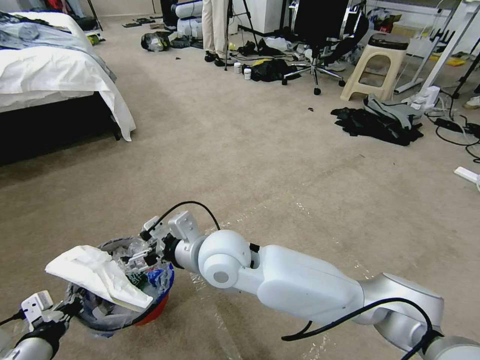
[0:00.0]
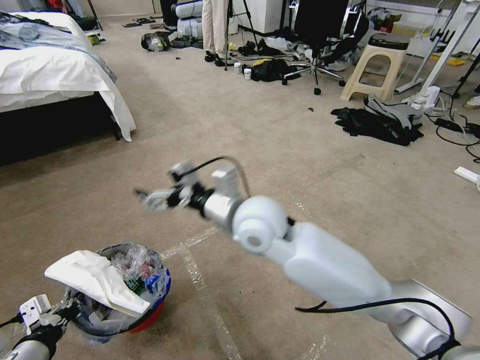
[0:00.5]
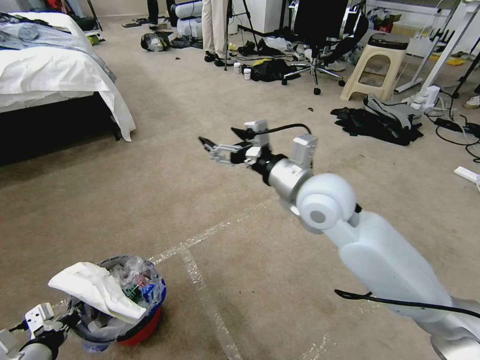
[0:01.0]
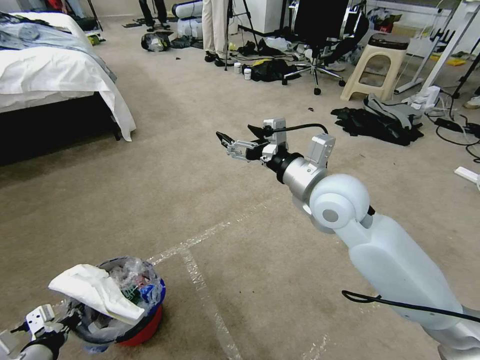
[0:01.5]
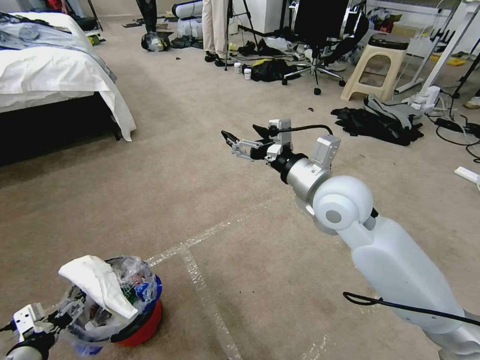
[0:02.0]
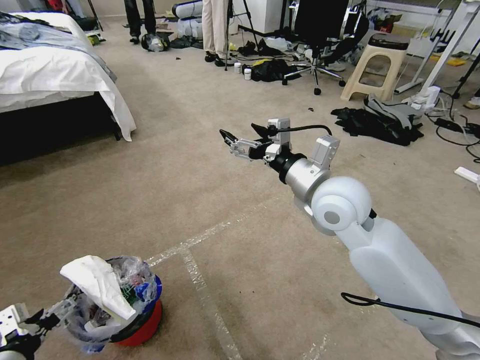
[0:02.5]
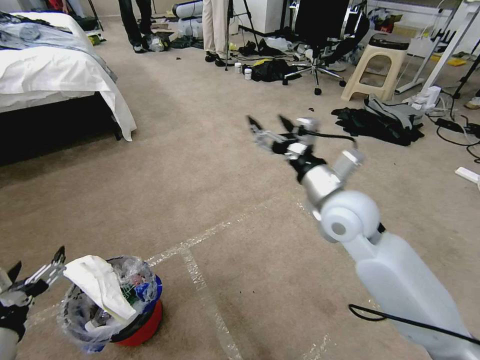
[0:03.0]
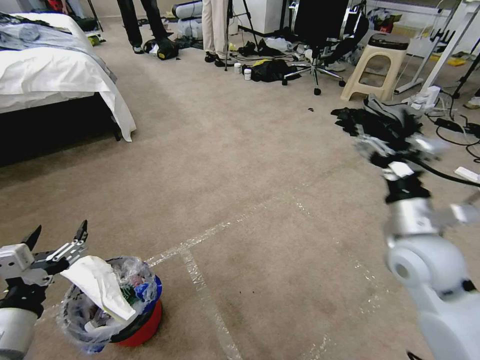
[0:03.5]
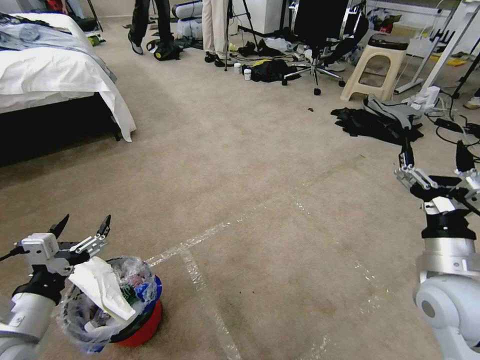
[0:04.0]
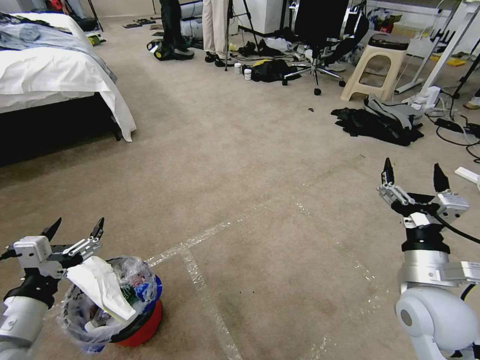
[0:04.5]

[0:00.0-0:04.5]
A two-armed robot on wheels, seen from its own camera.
Task of the whole recording: Pick up the trash bin and place the garbage on the floor into it.
0.0 to 2.0 s: The left gripper opens up. Meanwhile the right gripper moves to the right, roughly 20 cm.
2.0 to 4.5 s: The left gripper heads upward, covering some 10 cm; the right gripper is displaced backward, to the right and downward by approximately 25 cm.

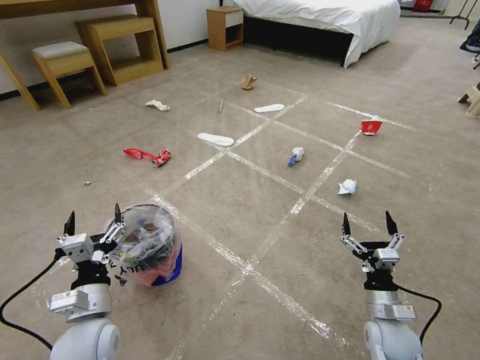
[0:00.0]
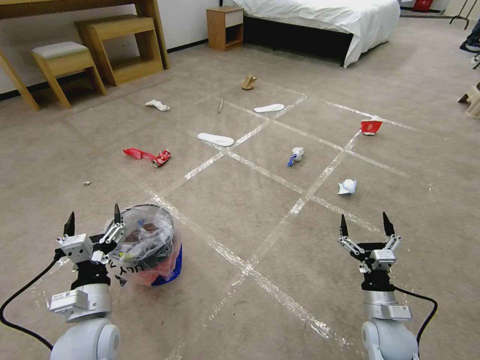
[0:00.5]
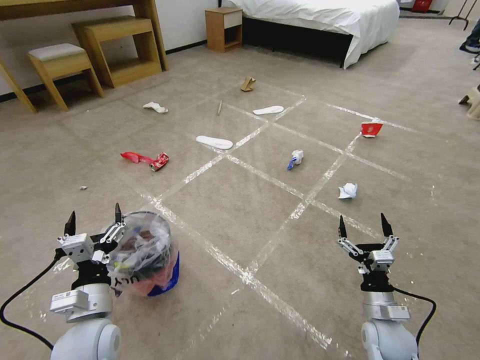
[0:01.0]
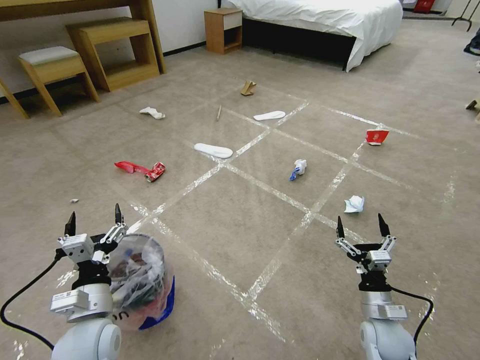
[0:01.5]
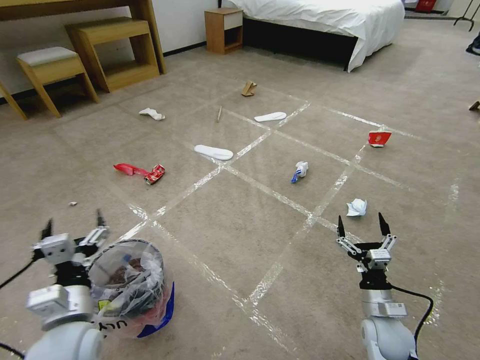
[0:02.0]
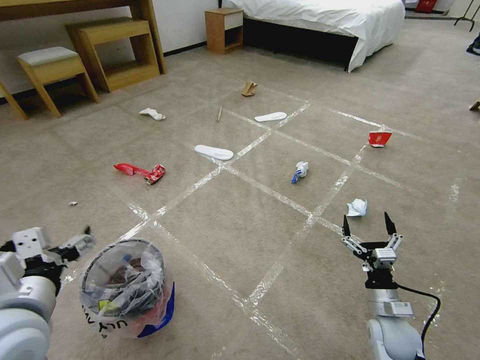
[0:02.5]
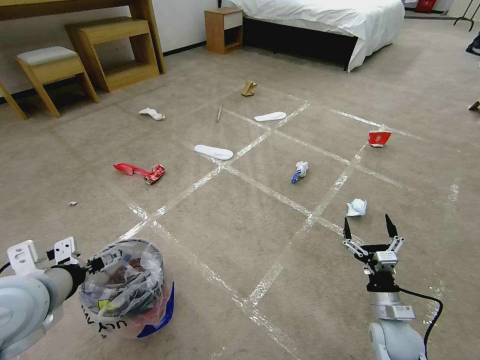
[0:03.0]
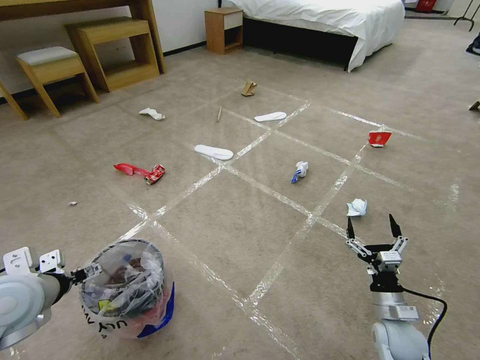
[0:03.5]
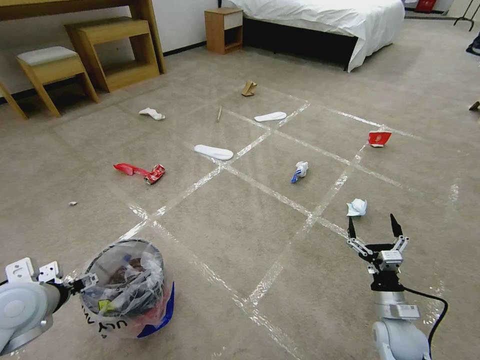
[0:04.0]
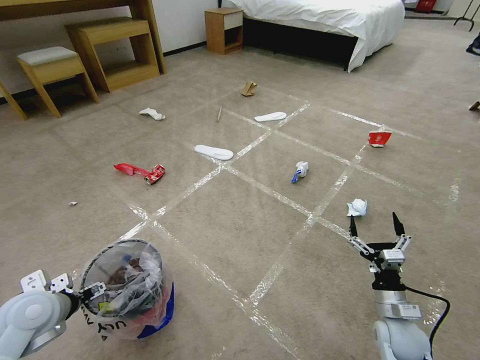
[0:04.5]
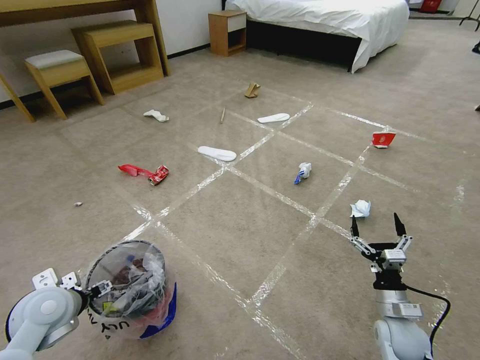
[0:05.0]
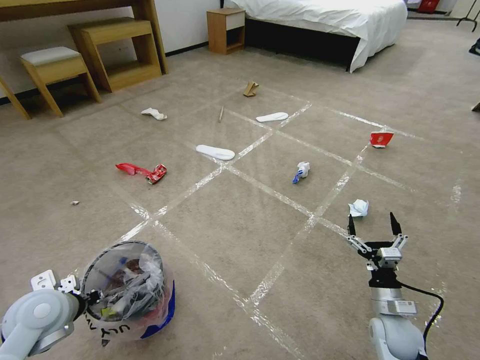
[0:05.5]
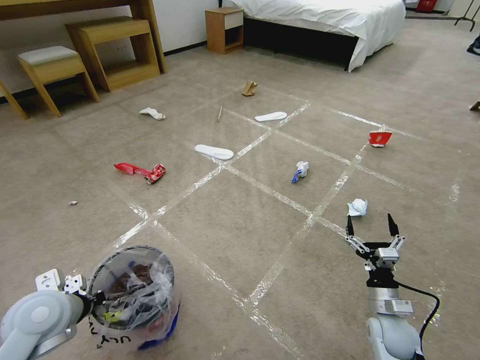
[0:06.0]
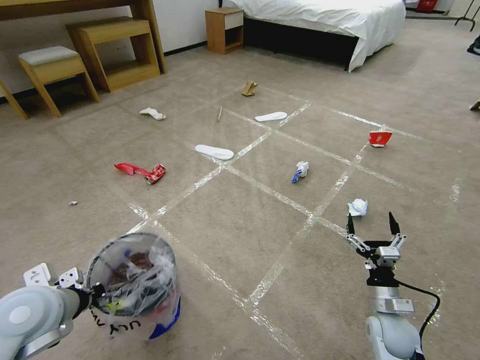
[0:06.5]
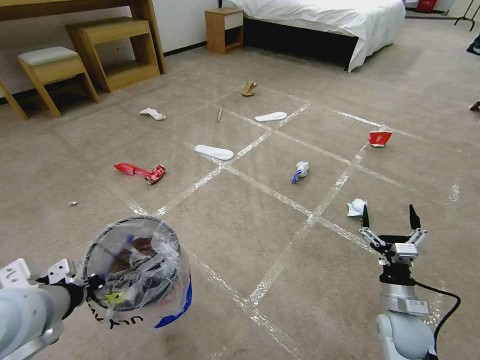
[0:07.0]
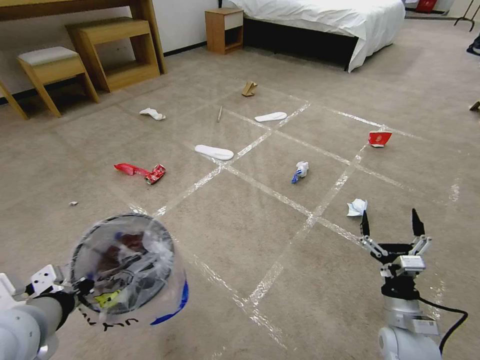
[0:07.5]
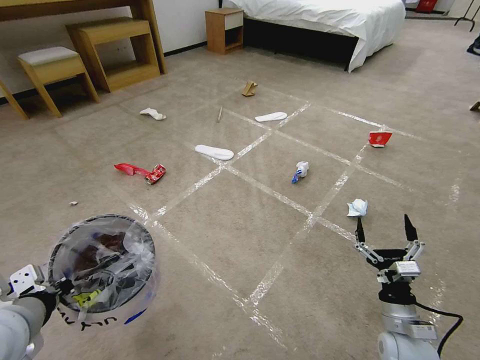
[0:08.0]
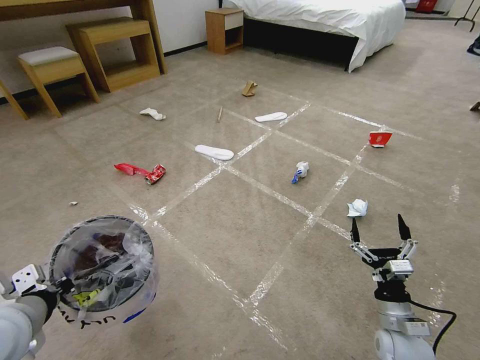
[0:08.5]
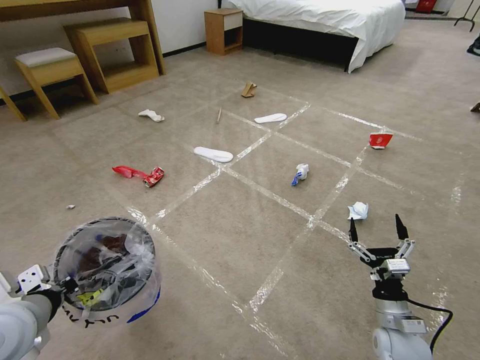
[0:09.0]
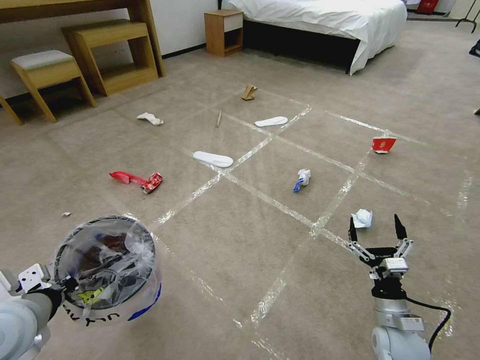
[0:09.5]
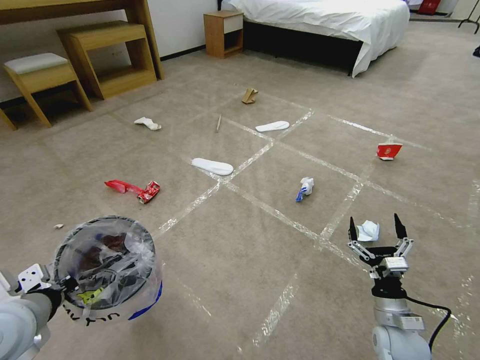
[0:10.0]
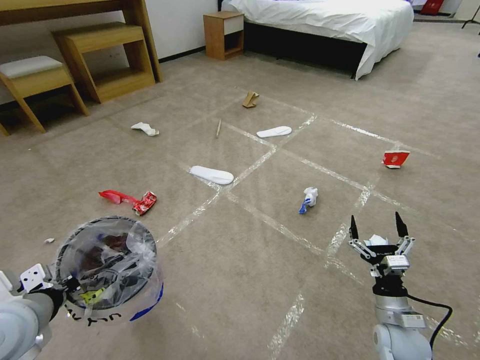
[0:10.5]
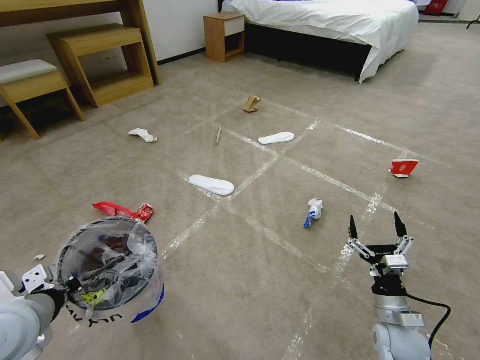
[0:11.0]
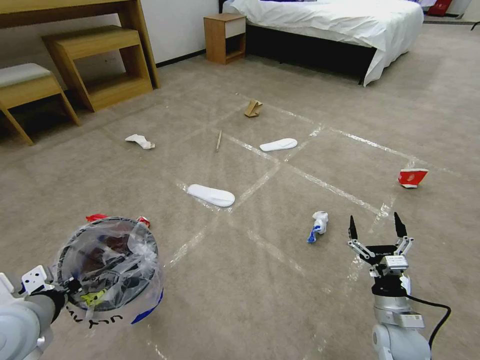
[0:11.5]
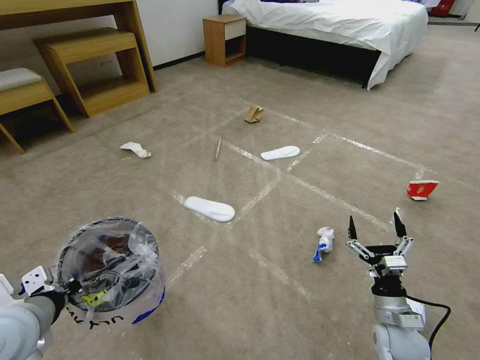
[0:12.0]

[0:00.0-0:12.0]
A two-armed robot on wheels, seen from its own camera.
Task of the whole recording: Pick up the trash bin and place the garbage on the floor into it.
2.0 to 4.0 s: The left gripper is displaced to the left and forward by some 10 cm, and moves about 15 cm upward and comes back.
4.0 to 6.0 s: The left gripper closes.
6.0 to 8.0 s: The right gripper changes place by some 5 cm. Meanwhile the left gripper moves upward and backward, roughly 10 cm.

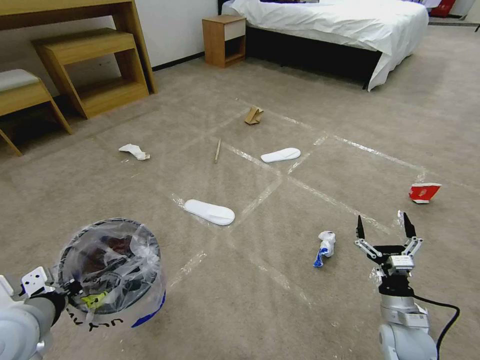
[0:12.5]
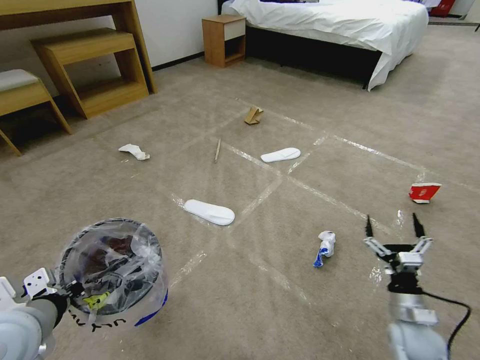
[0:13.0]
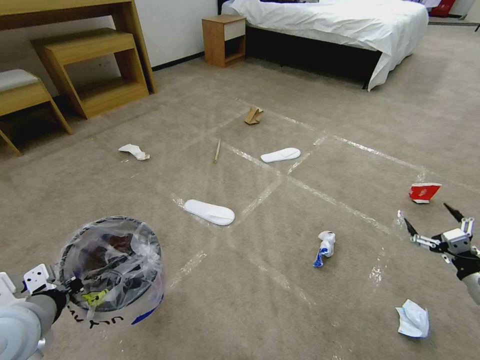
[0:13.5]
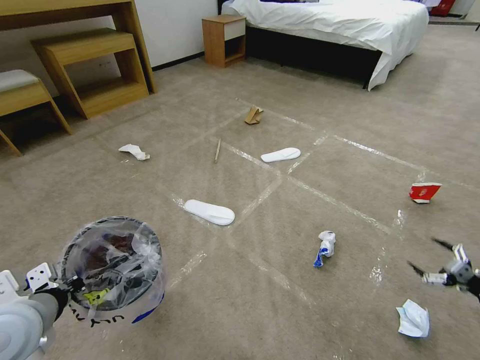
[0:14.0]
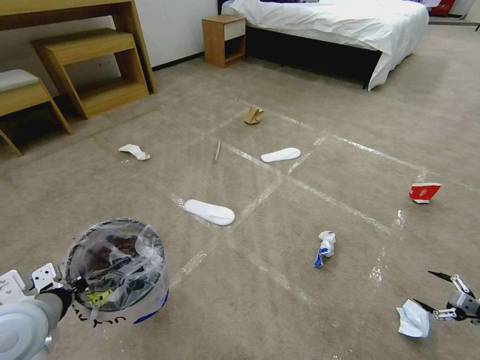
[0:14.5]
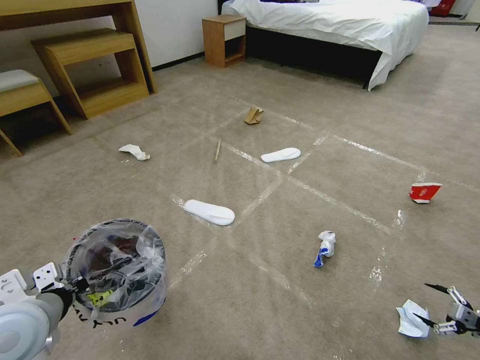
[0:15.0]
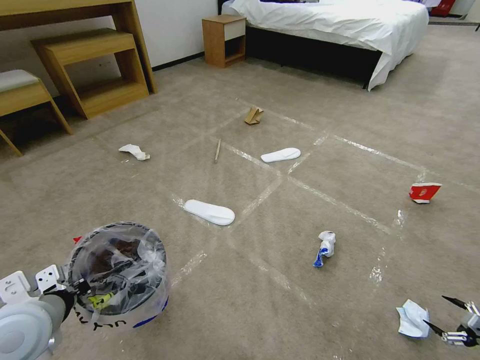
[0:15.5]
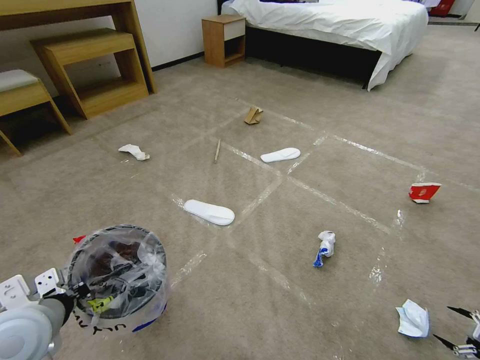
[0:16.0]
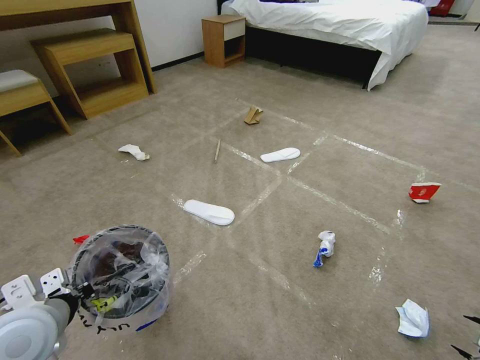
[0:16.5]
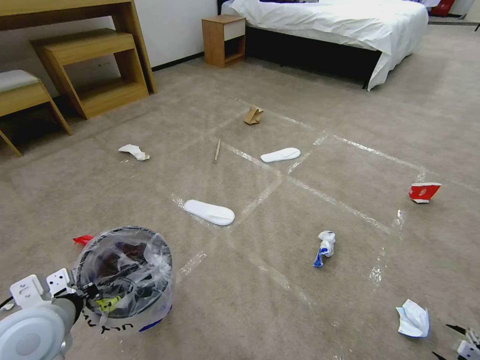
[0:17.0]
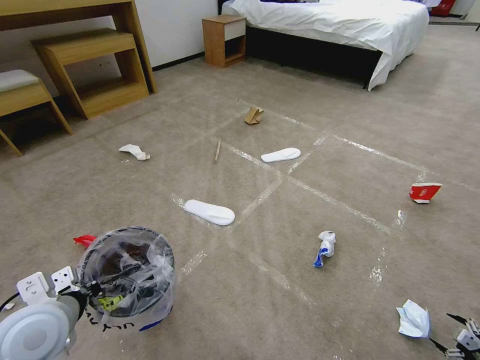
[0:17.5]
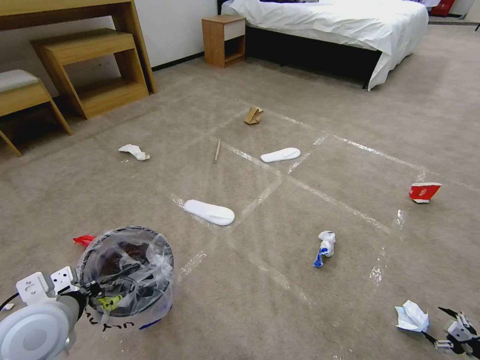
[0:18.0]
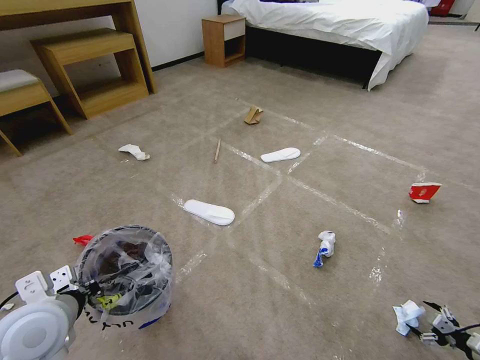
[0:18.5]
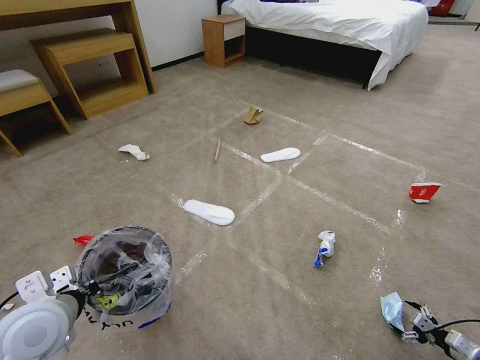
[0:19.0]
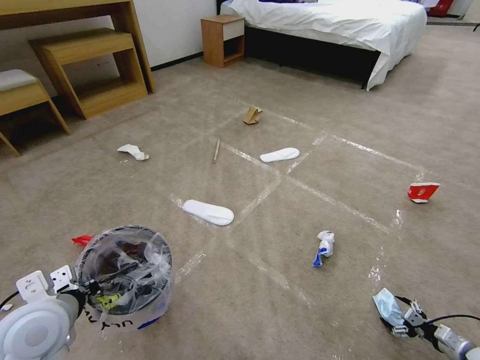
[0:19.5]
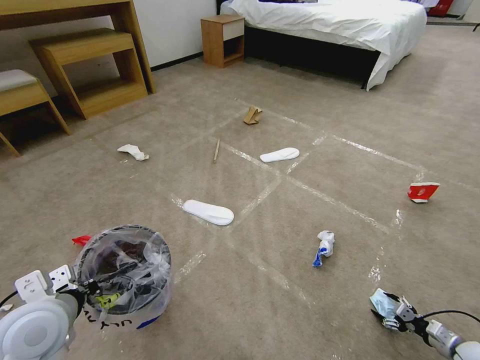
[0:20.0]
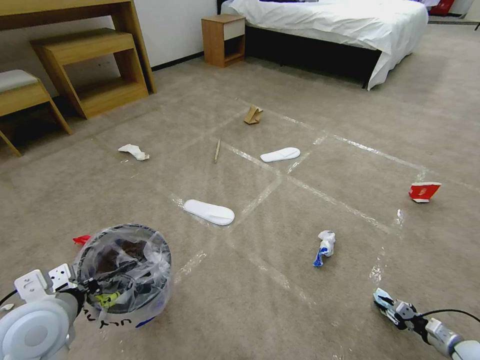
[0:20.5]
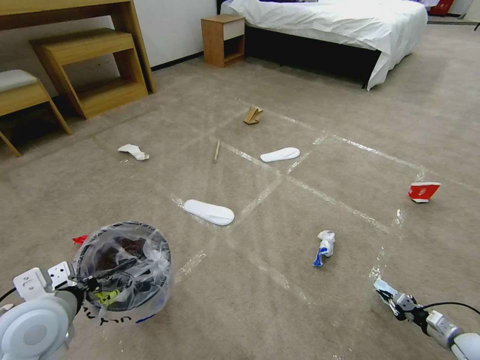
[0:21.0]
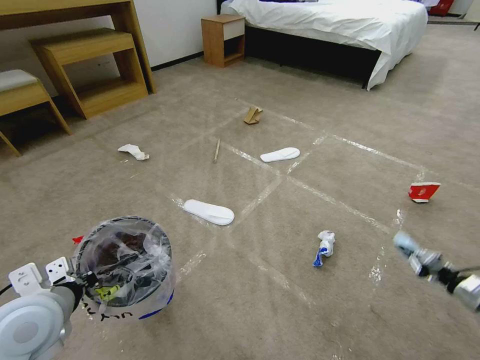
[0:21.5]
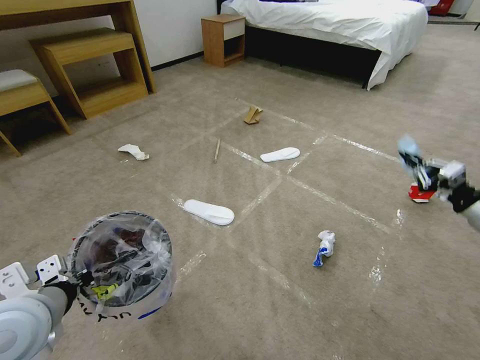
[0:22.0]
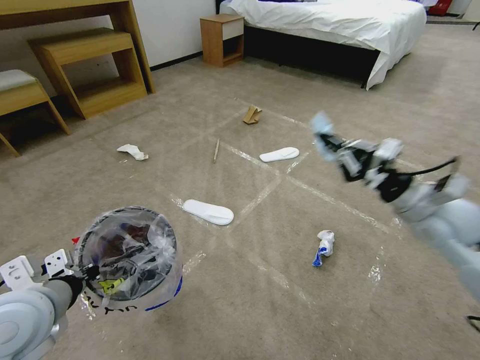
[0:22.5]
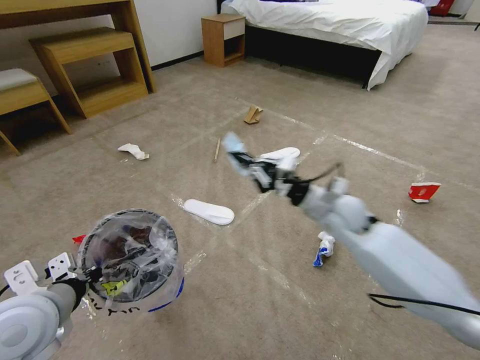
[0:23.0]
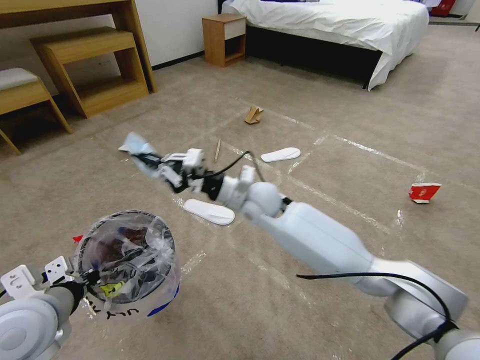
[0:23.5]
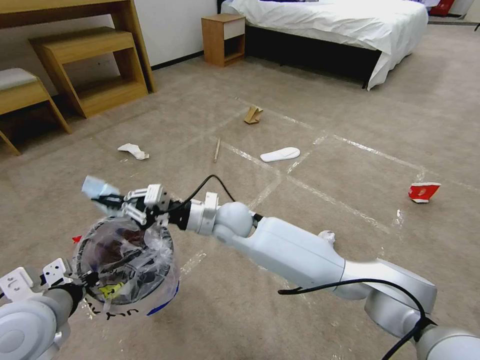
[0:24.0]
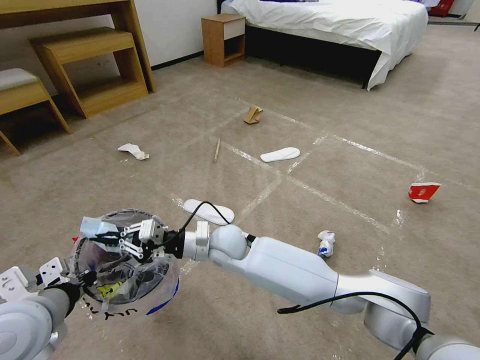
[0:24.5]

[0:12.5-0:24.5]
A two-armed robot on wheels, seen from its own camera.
Task of the whole recording: Pick up the trash bin and place the garbage on the floor into it.
12.5 to 14.5 s: The right gripper shifts approximately 35 cm to the right.
14.5 to 16.5 s: The right gripper shifts about 5 cm backward.
16.5 to 18.5 s: The right gripper moves downward and to the left, some 10 cm.
18.5 to 20.5 s: The right gripper moves to the left and downward, about 5 cm, and closes its fingers.
20.5 to 22.5 s: The right gripper is displaced upward, to the left and forward by about 50 cm.
22.5 to 24.5 s: The right gripper is displaced to the left by roughly 40 cm.
